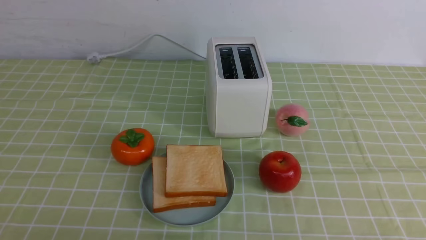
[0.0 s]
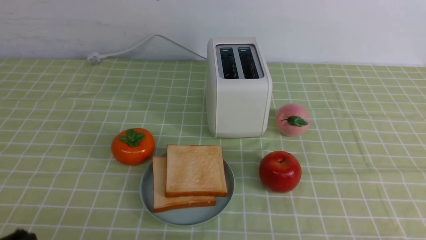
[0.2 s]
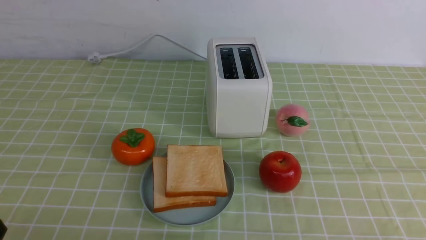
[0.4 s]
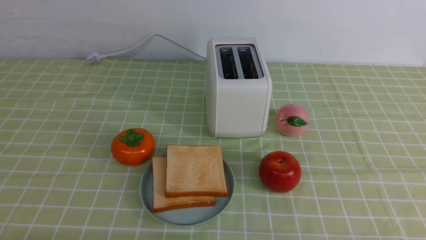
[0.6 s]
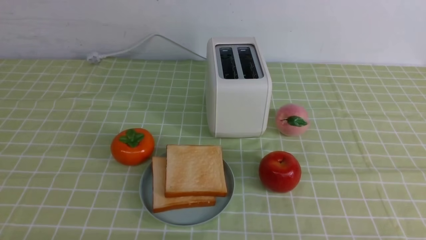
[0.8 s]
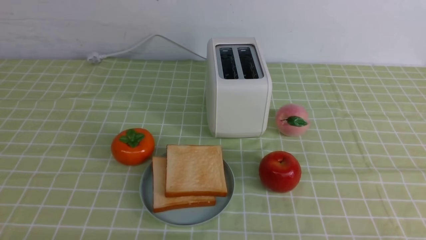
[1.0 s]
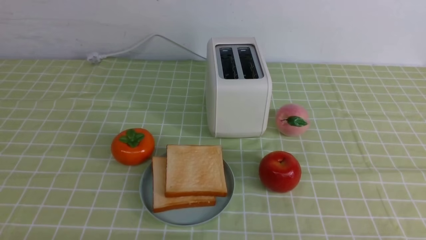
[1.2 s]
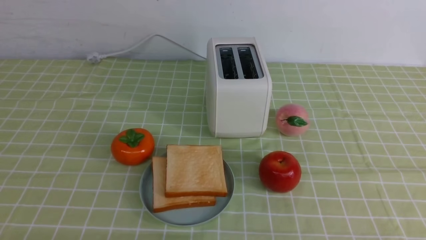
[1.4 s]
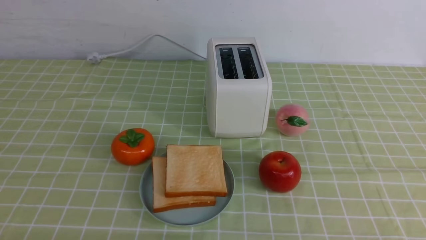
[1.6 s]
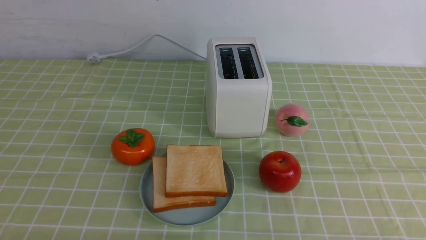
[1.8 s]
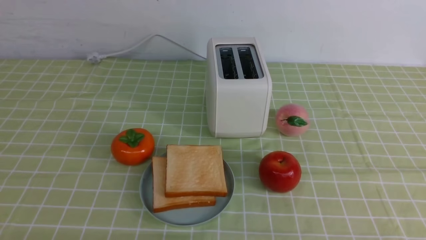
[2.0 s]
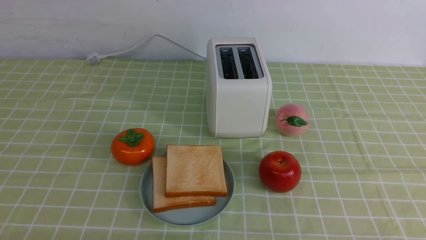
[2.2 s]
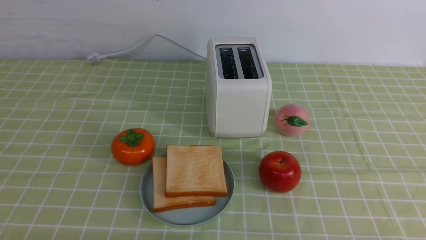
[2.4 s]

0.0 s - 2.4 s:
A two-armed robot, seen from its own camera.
Task of the whole recording: take toasted bread from bread machine on green coffee tablecloth place on plate.
1.2 s - 2.4 s: The two grippers keep their place.

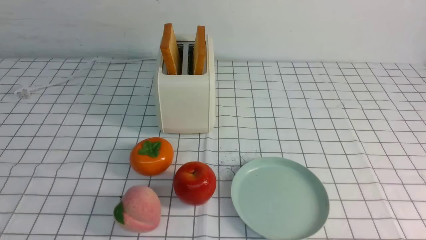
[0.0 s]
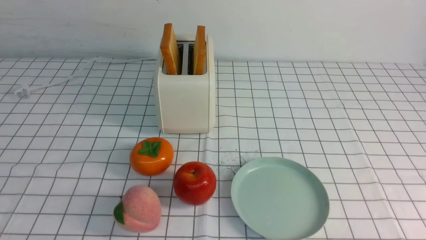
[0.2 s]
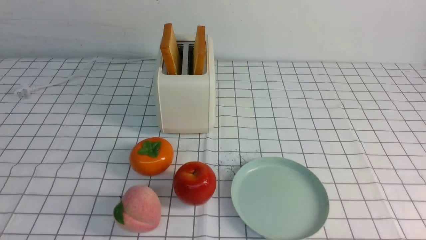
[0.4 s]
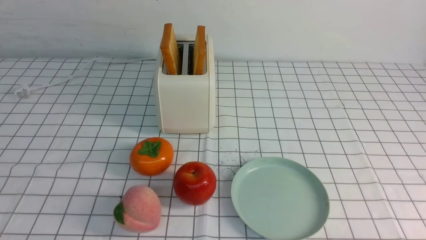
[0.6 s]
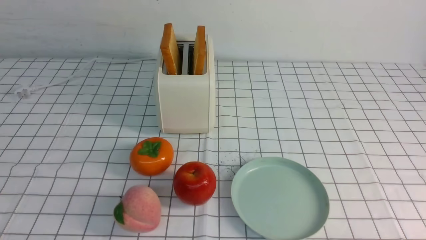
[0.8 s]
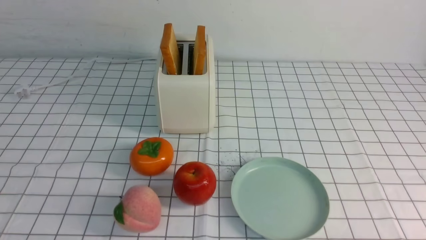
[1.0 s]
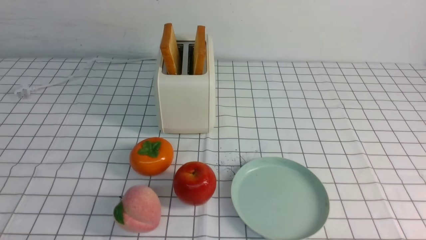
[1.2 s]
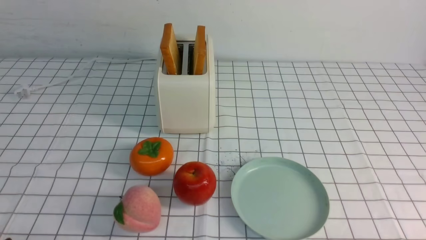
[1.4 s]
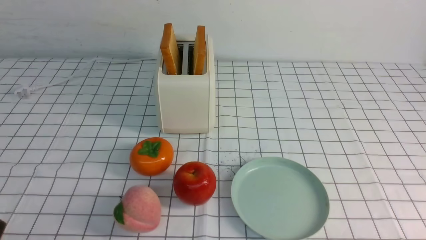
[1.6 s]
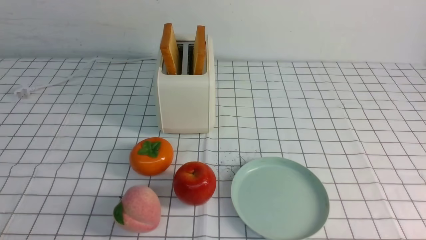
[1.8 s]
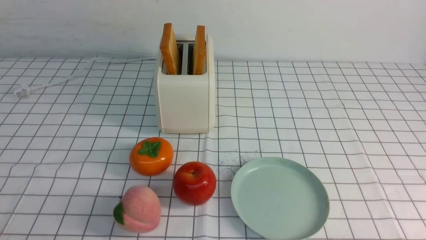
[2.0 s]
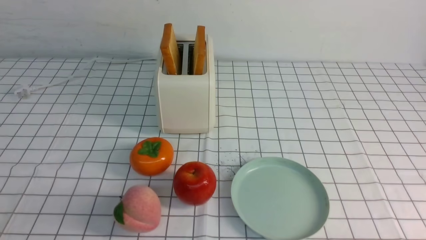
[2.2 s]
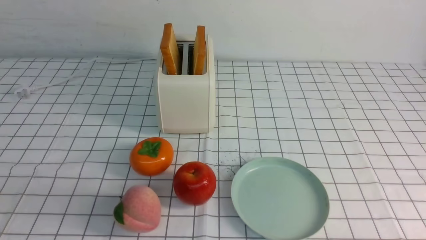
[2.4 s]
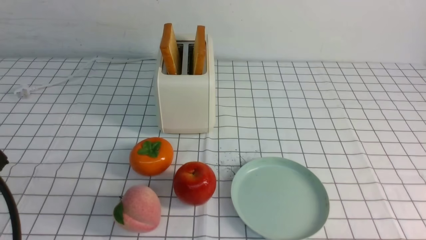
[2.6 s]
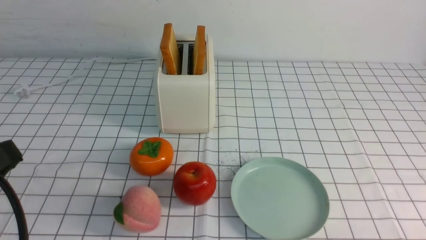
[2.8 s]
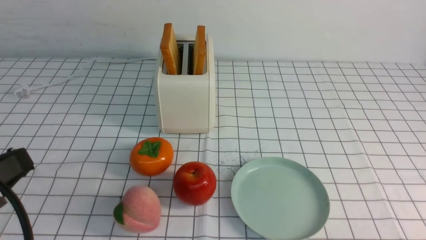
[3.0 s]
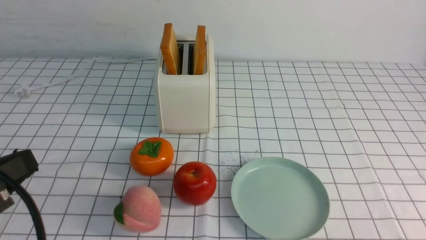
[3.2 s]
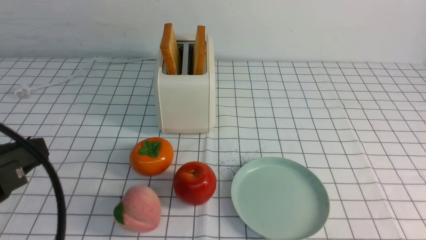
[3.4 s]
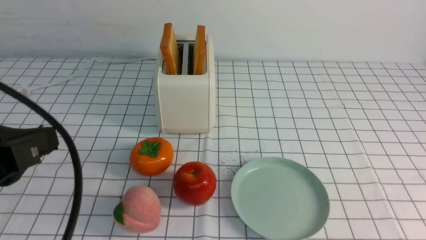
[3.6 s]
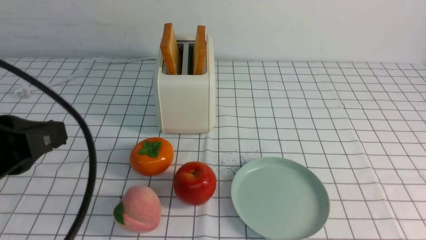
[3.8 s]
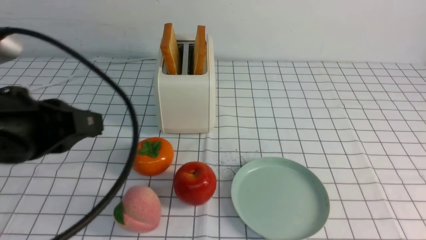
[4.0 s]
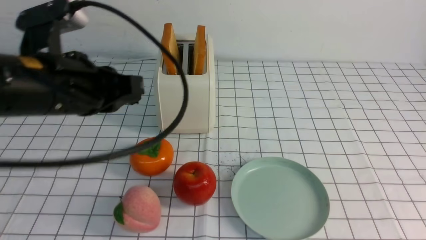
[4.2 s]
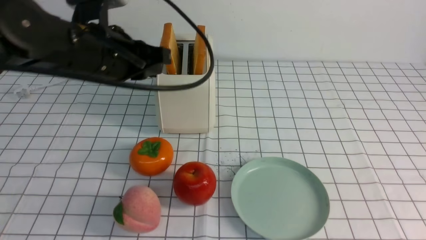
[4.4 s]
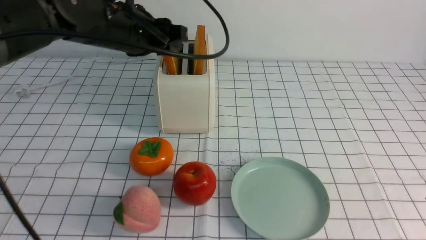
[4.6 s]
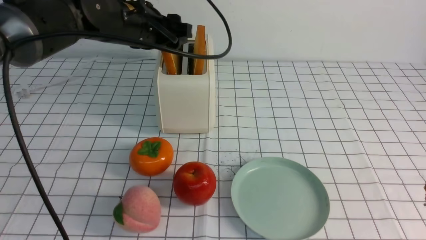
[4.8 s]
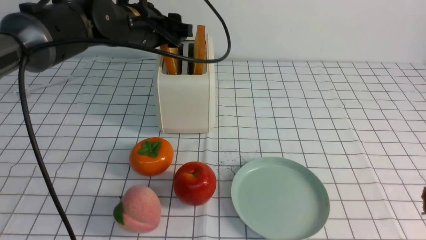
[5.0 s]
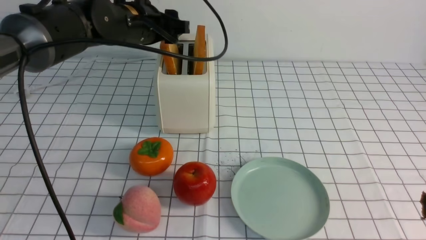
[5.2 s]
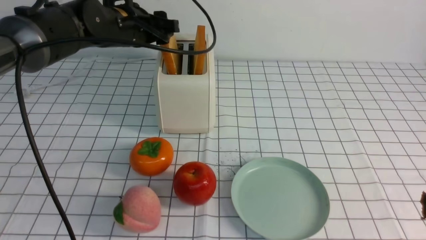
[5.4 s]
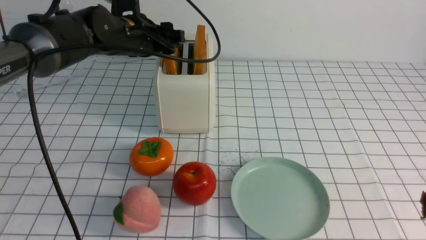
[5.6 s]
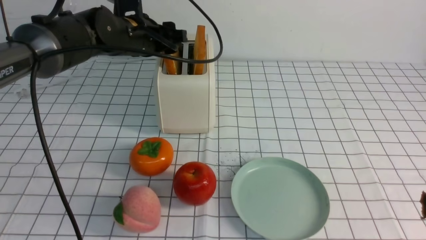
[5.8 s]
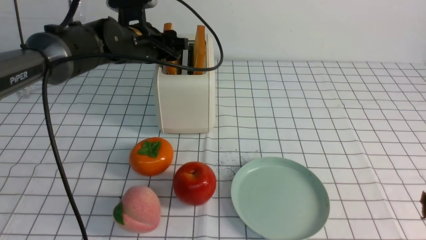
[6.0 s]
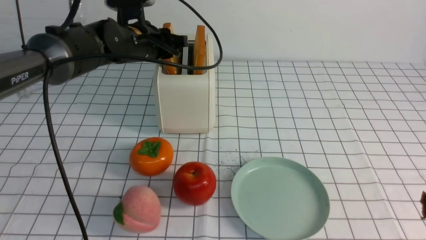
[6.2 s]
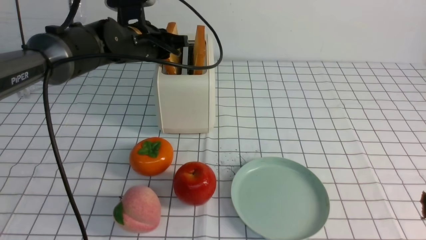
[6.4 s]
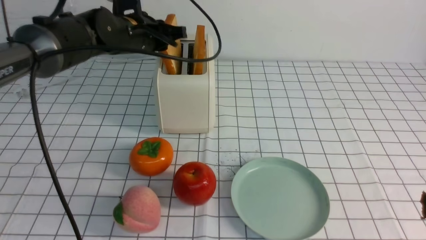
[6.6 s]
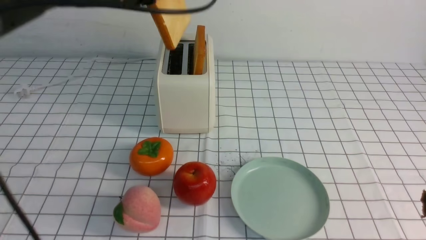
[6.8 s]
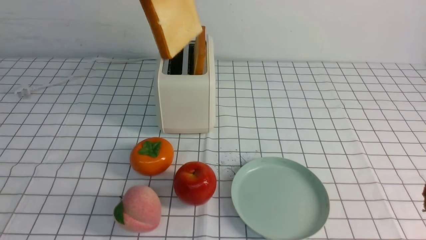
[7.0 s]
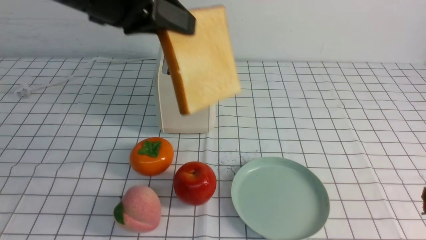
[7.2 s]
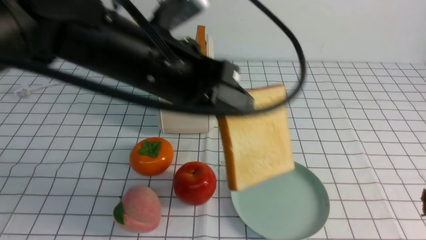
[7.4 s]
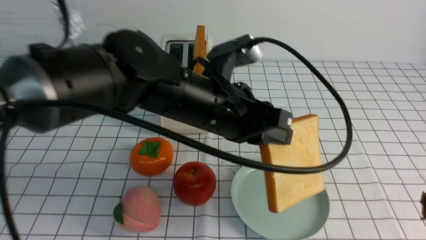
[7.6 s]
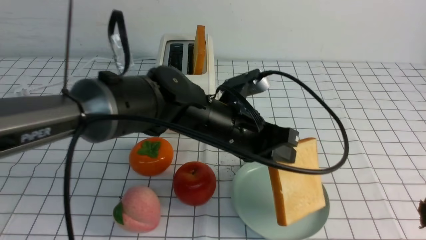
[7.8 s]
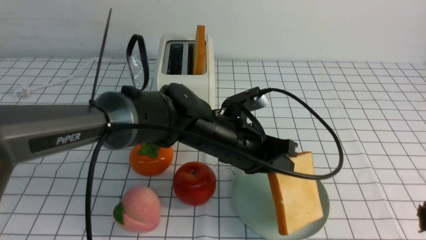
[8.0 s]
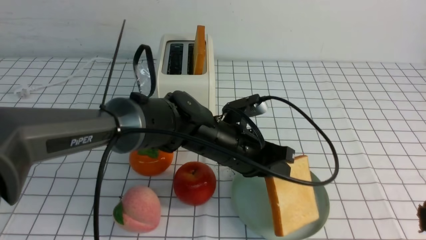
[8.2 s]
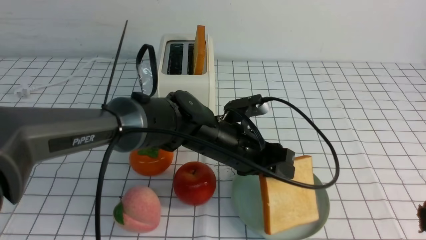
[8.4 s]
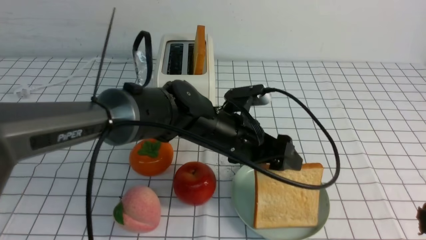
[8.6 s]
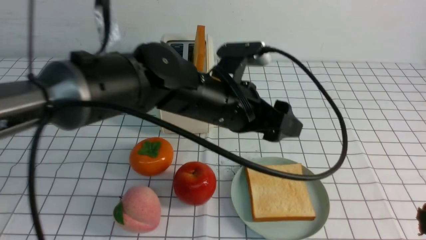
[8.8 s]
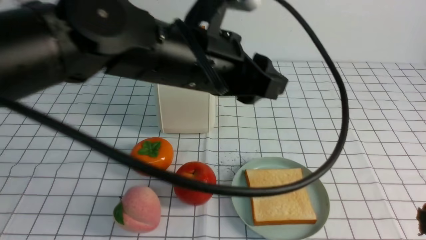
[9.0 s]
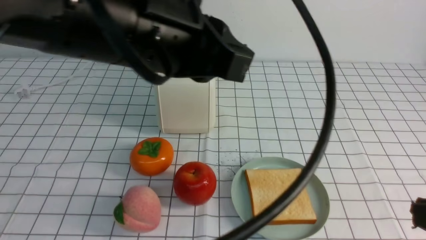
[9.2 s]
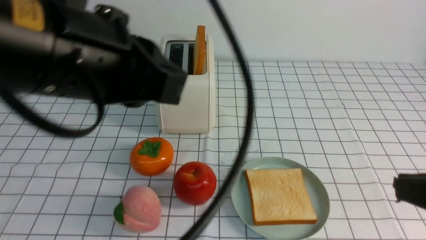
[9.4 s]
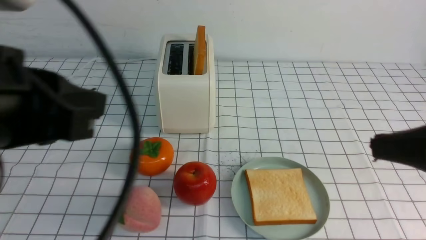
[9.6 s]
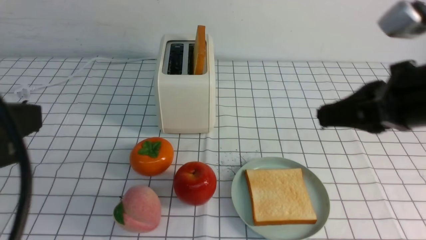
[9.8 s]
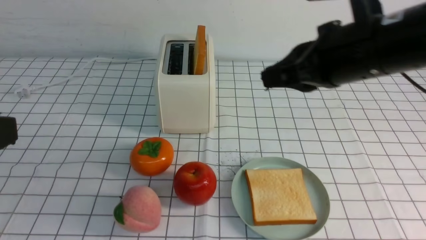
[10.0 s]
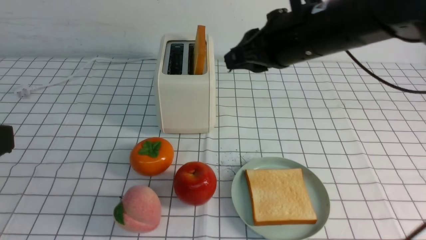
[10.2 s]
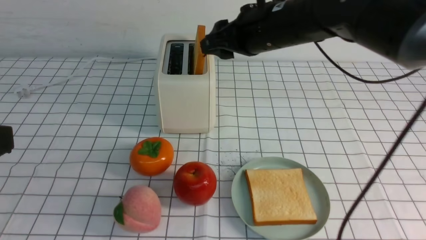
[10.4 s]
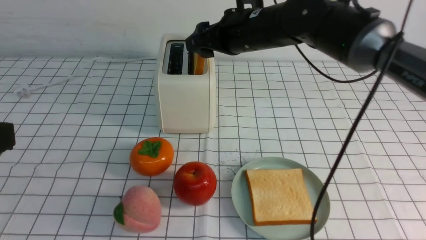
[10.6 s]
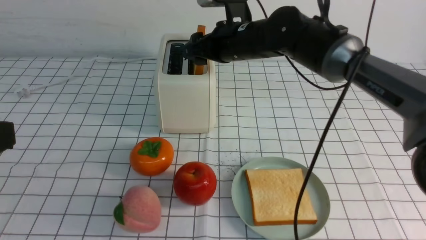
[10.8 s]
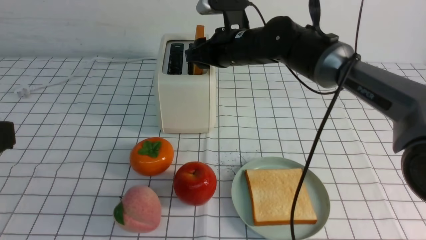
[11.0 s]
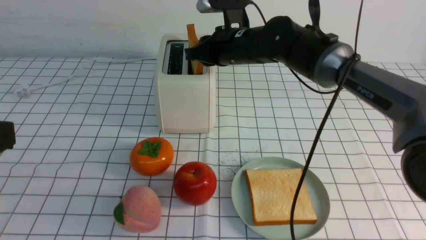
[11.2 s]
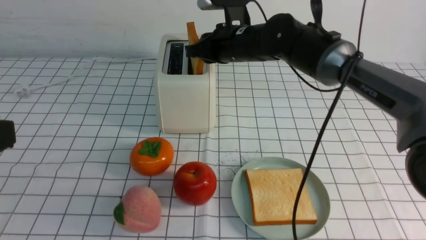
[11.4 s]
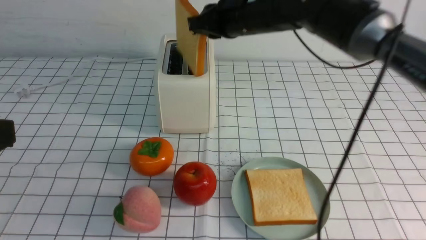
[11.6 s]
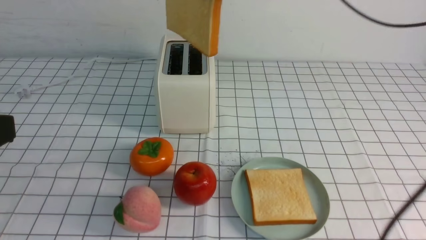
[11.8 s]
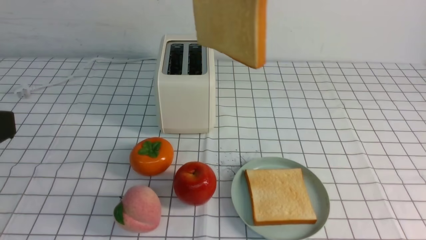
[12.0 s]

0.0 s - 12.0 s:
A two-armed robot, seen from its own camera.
Task of the whole recording: take toasted bread from bread machine on white checkered table place on plate.
Step, 0.0 s - 6.6 s: use the left arm to take out a slice of bread.
Step, 6.8 s - 8.6 s: use the left arm to put a slice of bread into the empty plate.
Step, 8.8 s - 11.6 s: use the right arm to take out a slice of bread.
1.6 s - 3.0 s: The left gripper goes some 10 cm upward, and closes up.
3.0 s - 4.4 s: The right gripper moves upward, some 15 cm, and closes, while the left gripper goes roughly 25 cm forward, and opens.
4.4 s - 6.0 s: The left gripper goes roughly 15 cm forward and downward, and opens up.
6.0 s - 7.6 s: The left gripper goes about 20 cm backward and to the right, and closes.
7.6 s - 9.0 s: The left gripper moves upward, some 10 cm, and opens and closes again.
9.0 s - 10.4 s: The right gripper is displaced forward and to the left by approximately 35 cm, and opens its fingers. Meanwhile the left gripper shifts some 25 cm to the left and backward, and closes up.
10.4 s - 12.0 s: The right gripper moves upward and backward, approximately 20 cm, and closes its fingers.

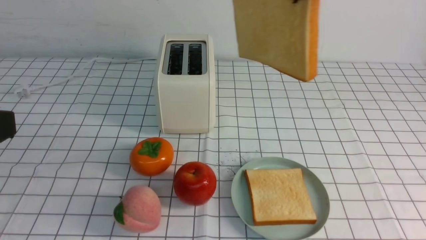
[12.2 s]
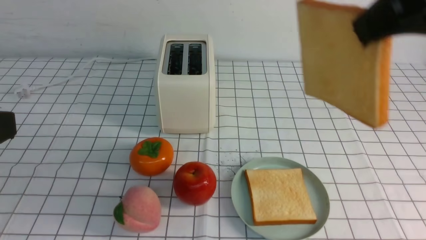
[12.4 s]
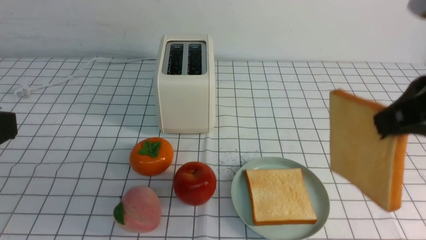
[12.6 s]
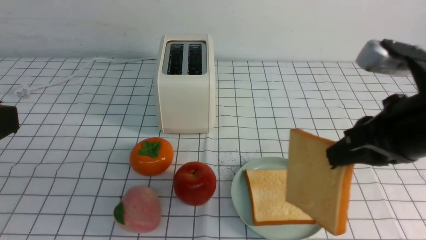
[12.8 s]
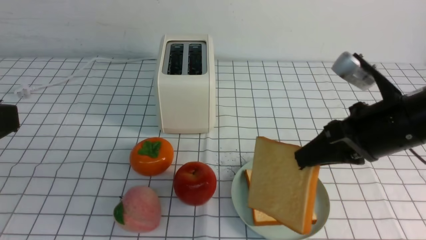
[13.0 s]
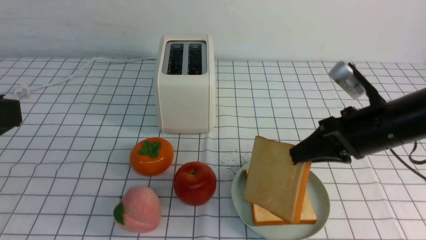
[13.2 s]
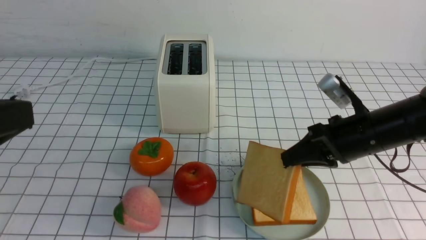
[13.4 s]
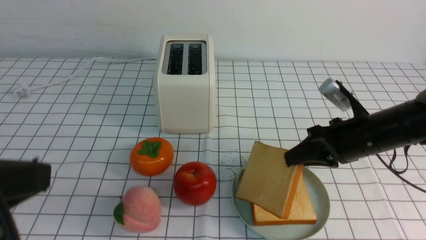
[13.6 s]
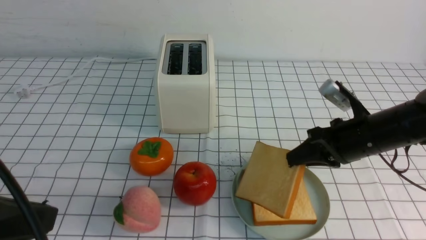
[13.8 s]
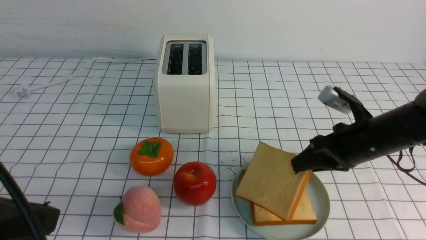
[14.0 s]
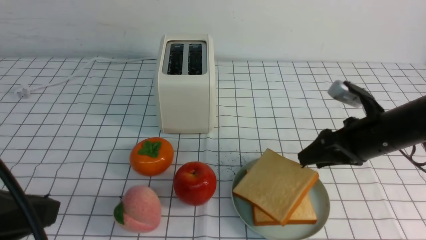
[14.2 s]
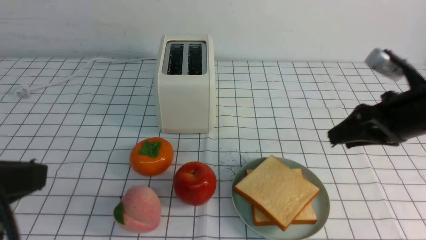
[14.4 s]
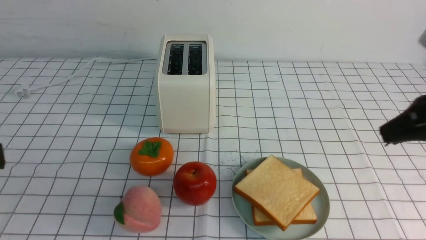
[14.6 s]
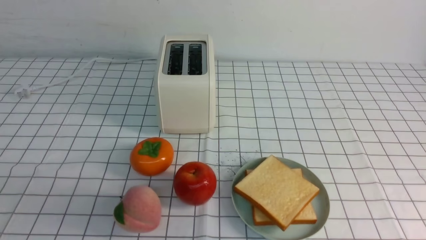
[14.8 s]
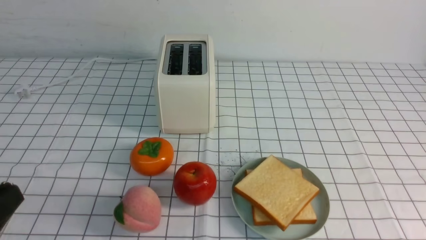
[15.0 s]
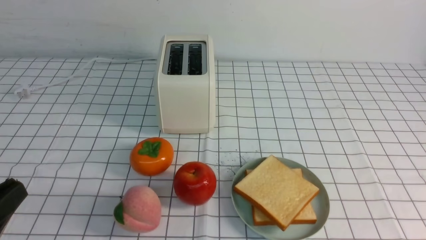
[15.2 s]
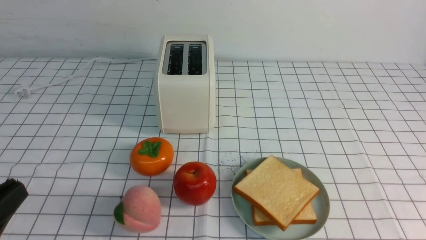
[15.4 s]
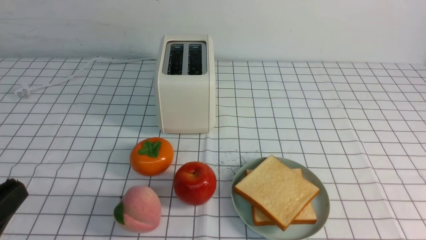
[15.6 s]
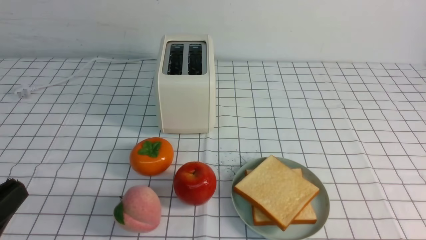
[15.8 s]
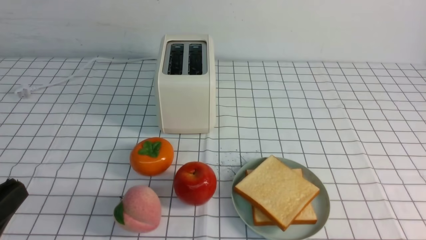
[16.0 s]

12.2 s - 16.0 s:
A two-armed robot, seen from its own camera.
Task of the whole recording: take toasted bread from bread machine on white checkered table place on plate.
Step, 12.2 s - 14.4 s: use the right arm to put a slice of bread into the plate.
12.2 s - 13.4 s: The right gripper is displaced downward by about 25 cm.
13.4 s - 14.8 s: The right gripper is displaced backward and upward by approximately 25 cm, and opens, then closes again. The left gripper goes approximately 5 cm downward.
